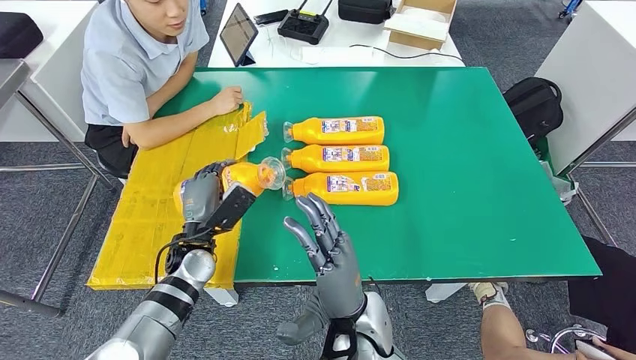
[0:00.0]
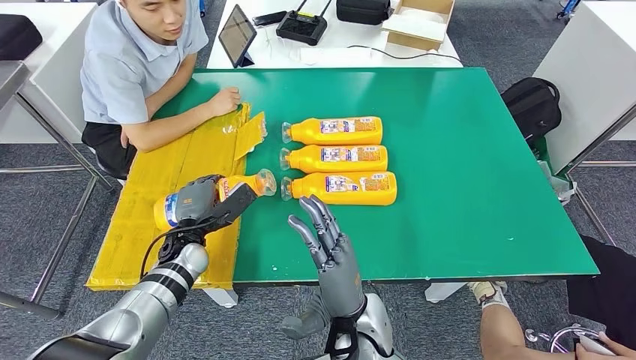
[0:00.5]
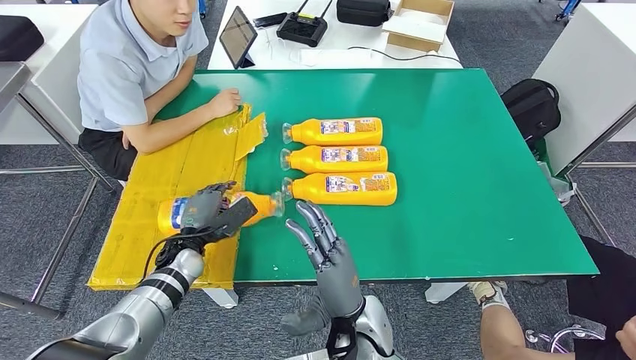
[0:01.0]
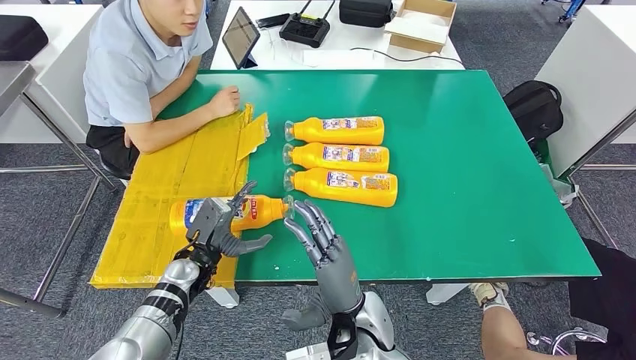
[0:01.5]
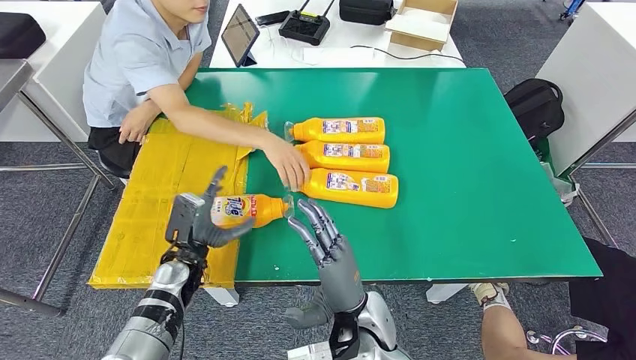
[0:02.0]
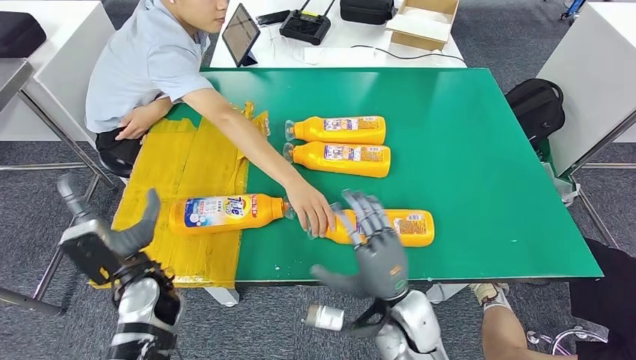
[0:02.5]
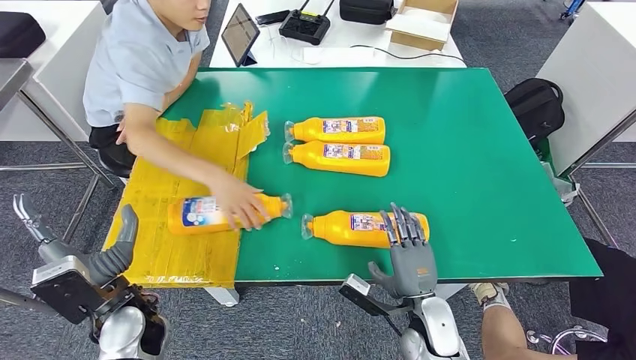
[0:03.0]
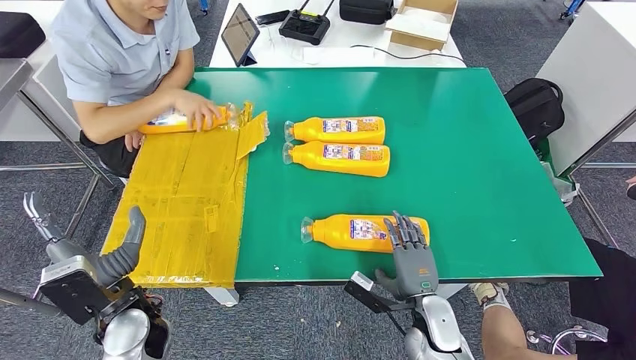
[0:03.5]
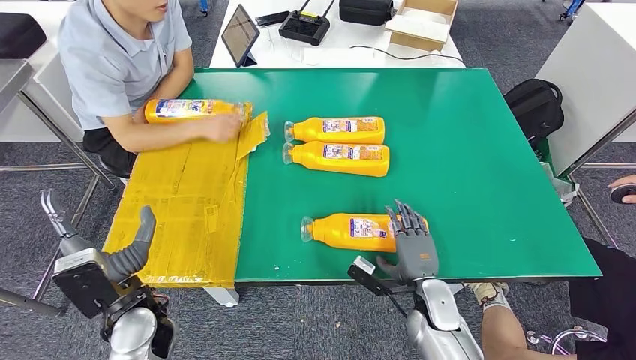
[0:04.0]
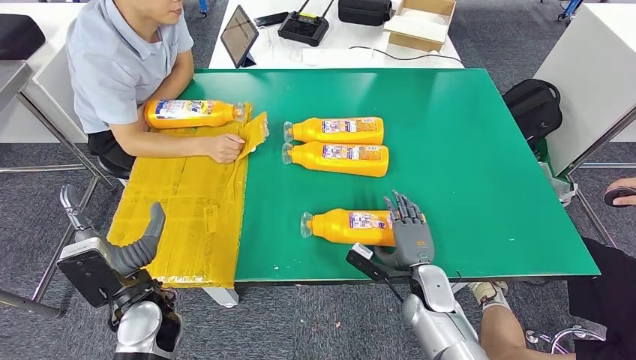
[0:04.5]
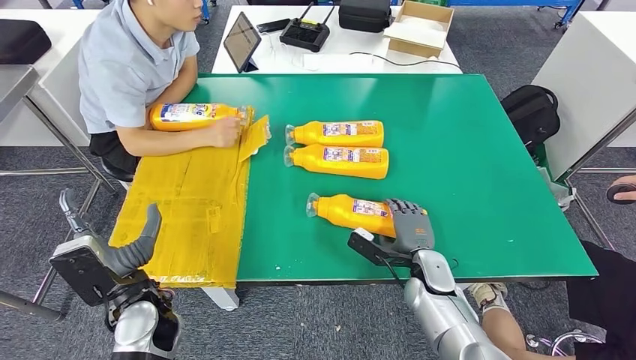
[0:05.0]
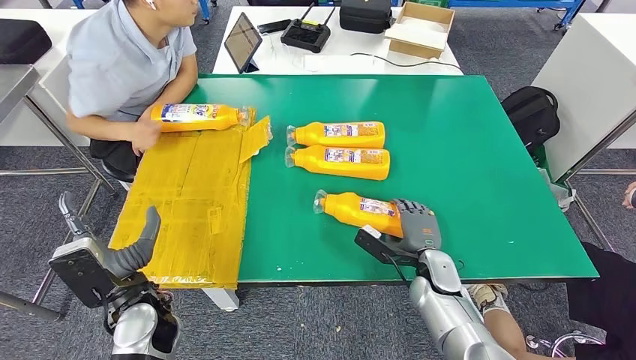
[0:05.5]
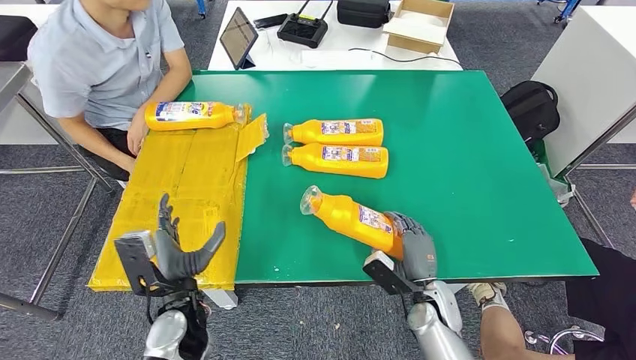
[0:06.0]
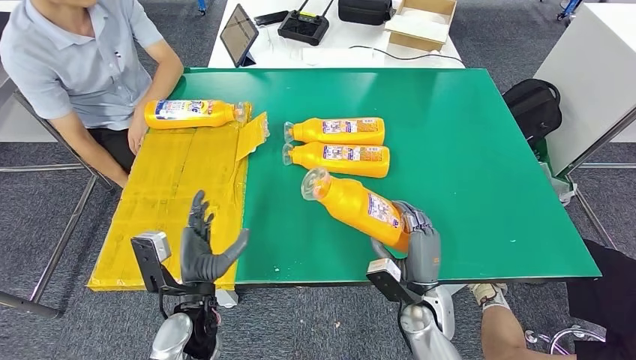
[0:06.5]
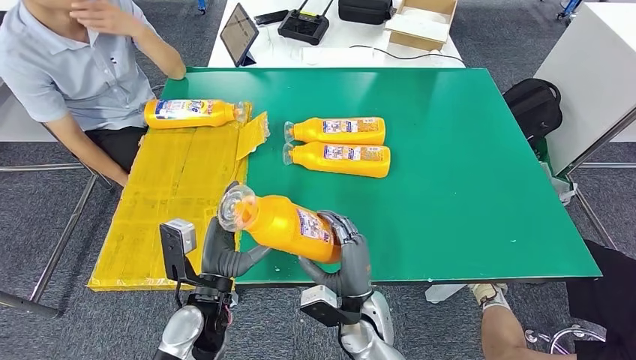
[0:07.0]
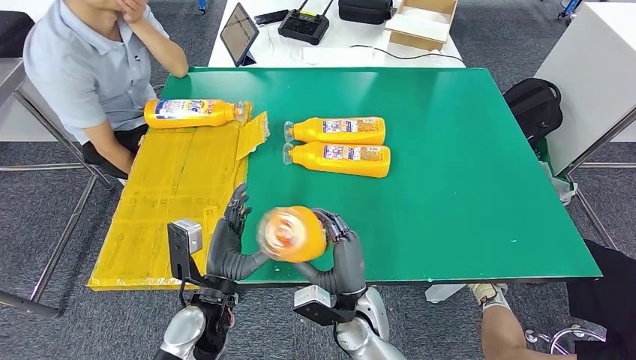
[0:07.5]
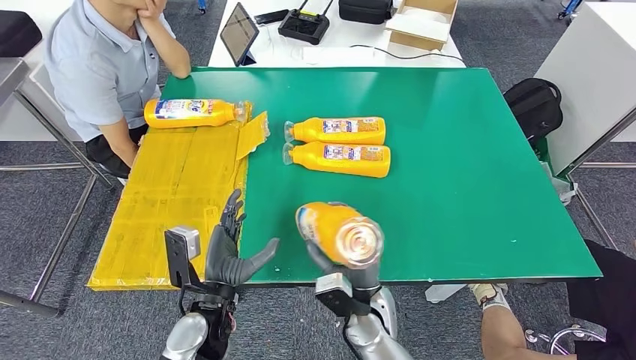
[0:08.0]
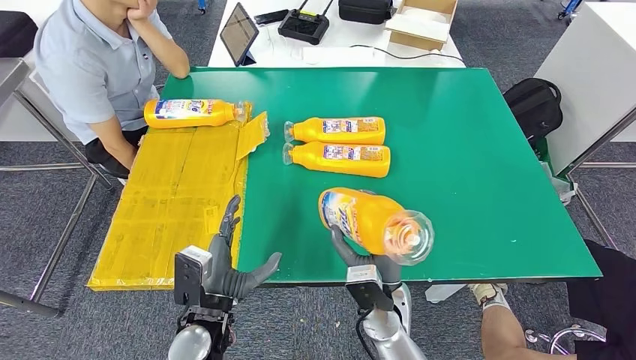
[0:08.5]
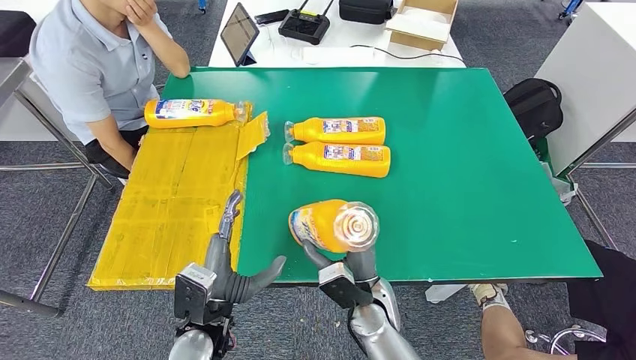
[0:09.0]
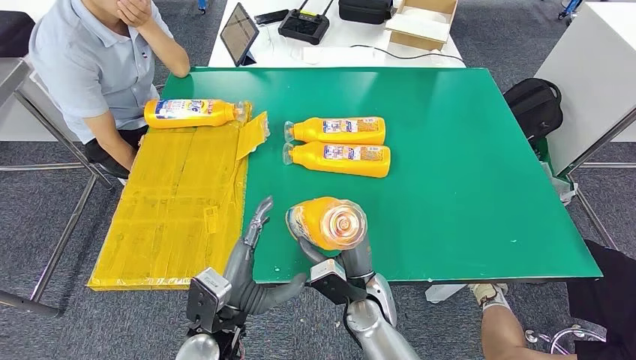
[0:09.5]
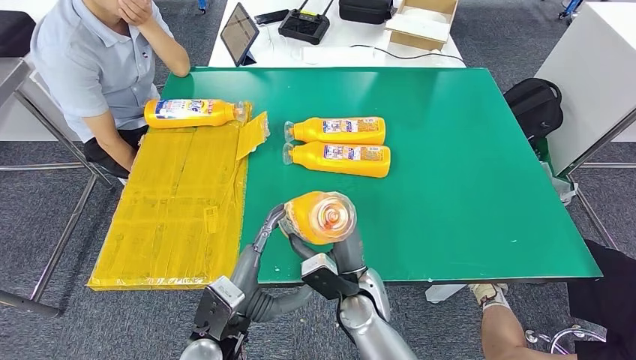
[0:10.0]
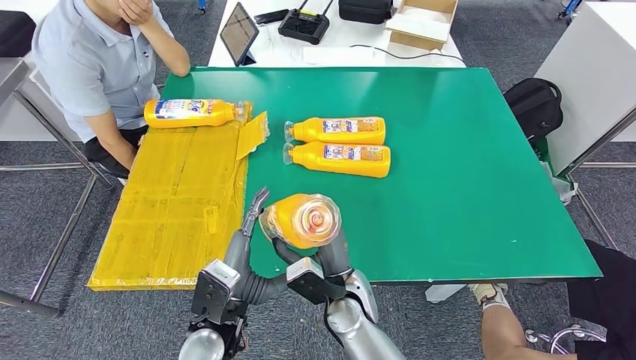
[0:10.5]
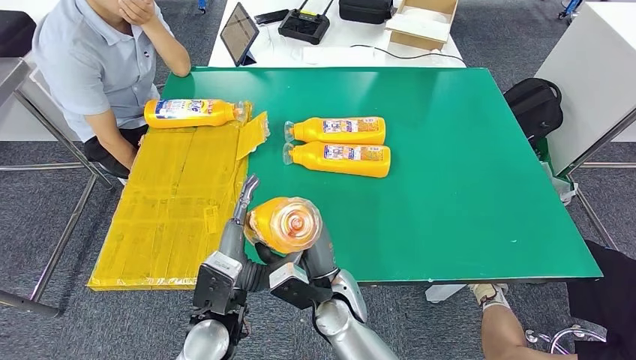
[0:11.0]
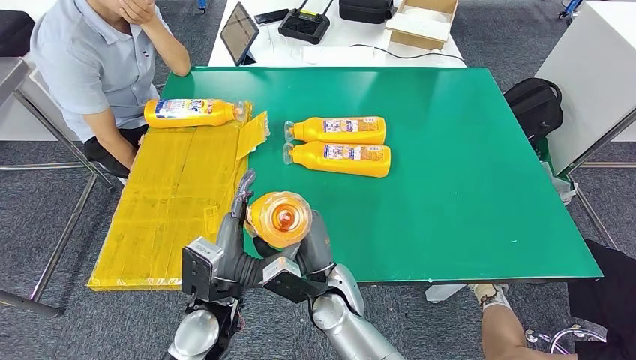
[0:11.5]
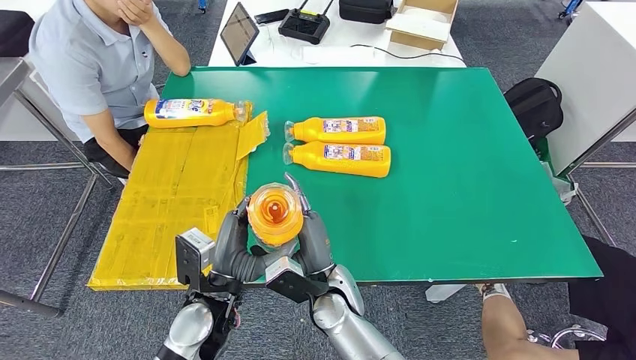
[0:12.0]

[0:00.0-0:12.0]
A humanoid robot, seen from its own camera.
Step, 0:01.0 to 0:07.0: Pick up the bottle from the table.
0:10.0 to 0:12.0: The right hand is displaced to the left by about 5 cm.

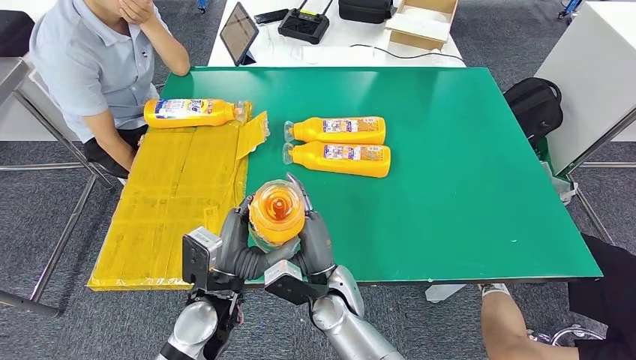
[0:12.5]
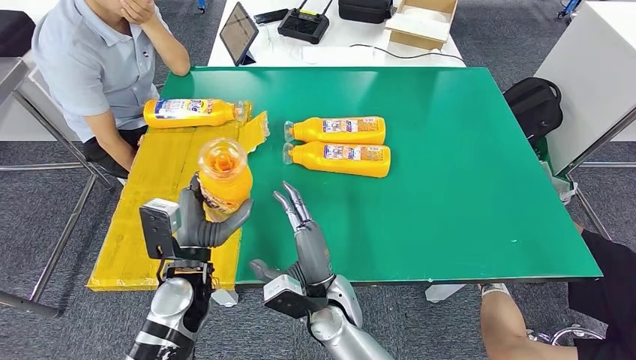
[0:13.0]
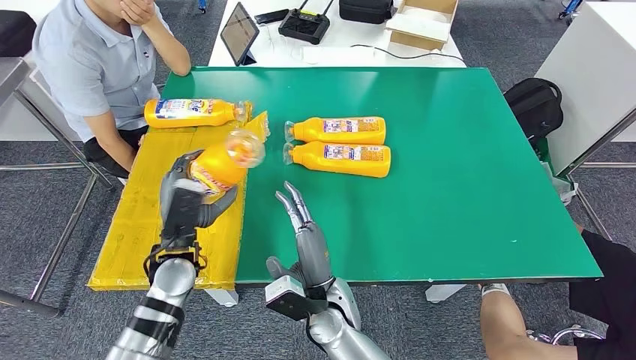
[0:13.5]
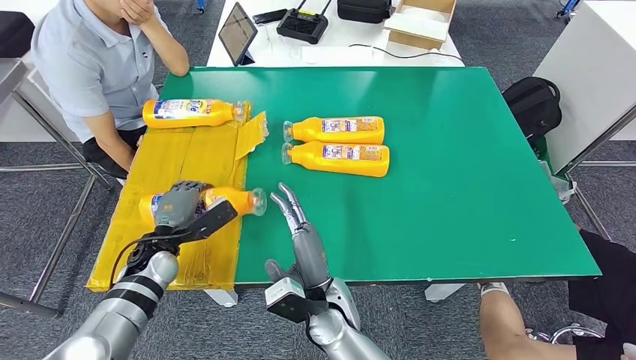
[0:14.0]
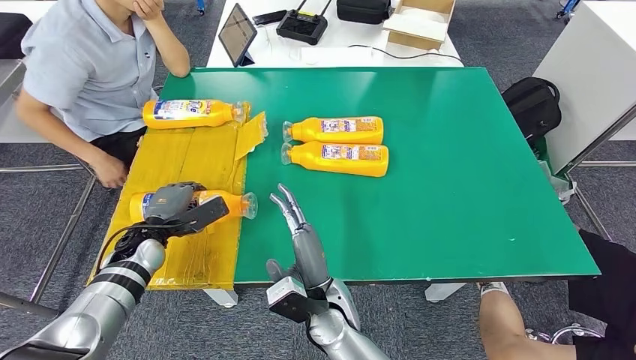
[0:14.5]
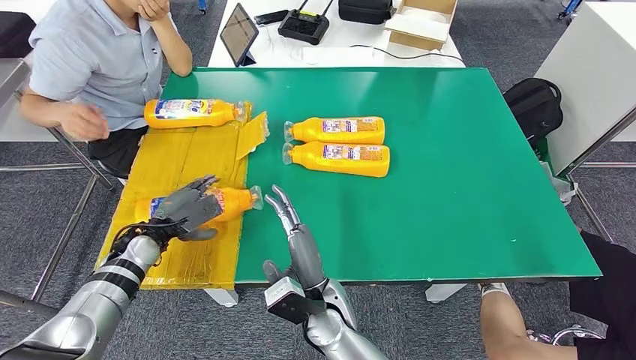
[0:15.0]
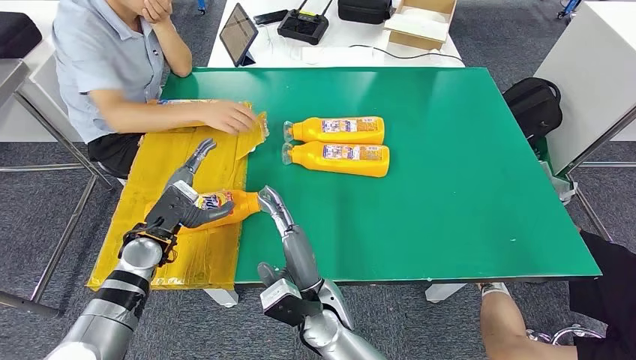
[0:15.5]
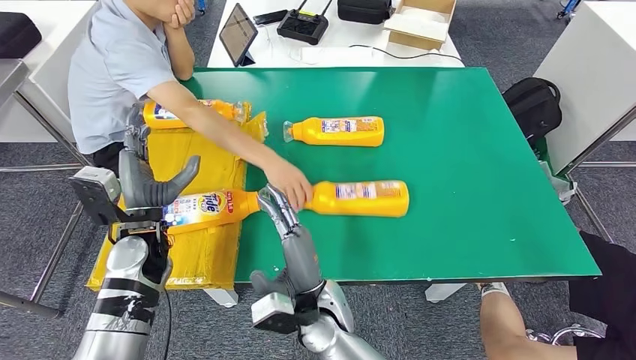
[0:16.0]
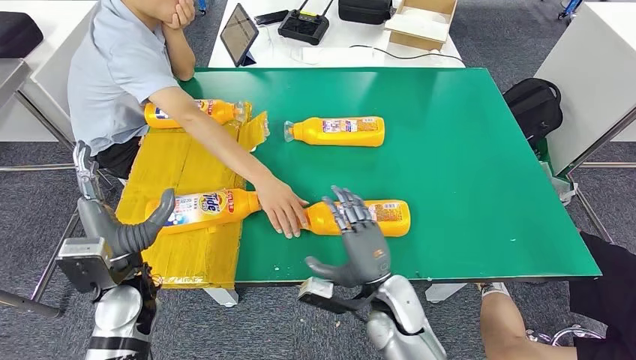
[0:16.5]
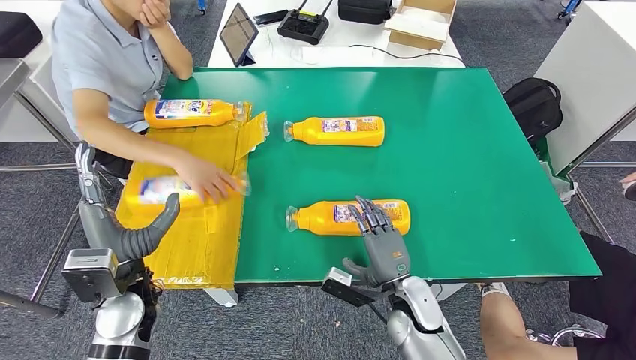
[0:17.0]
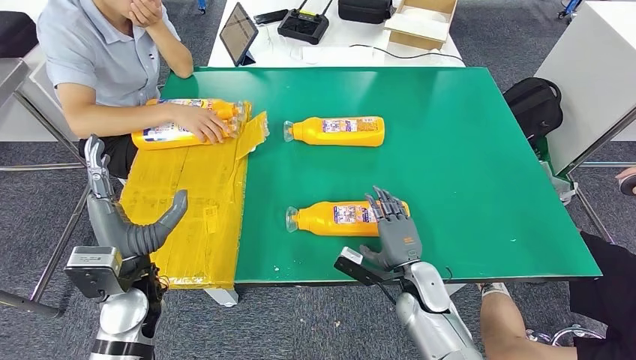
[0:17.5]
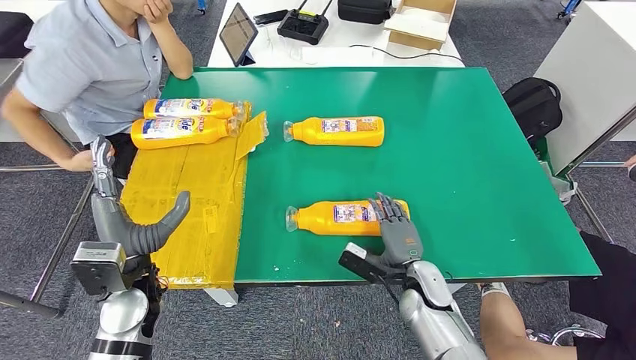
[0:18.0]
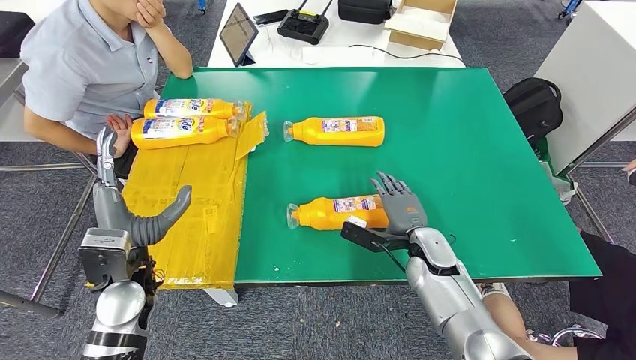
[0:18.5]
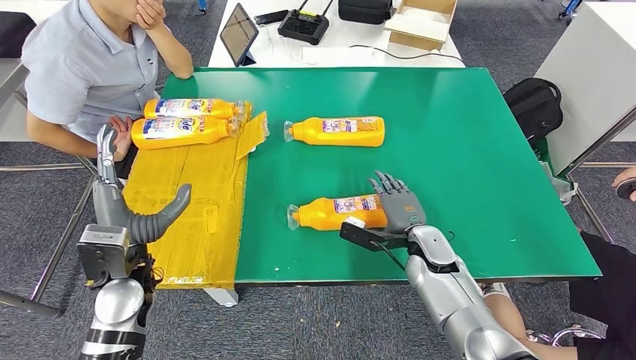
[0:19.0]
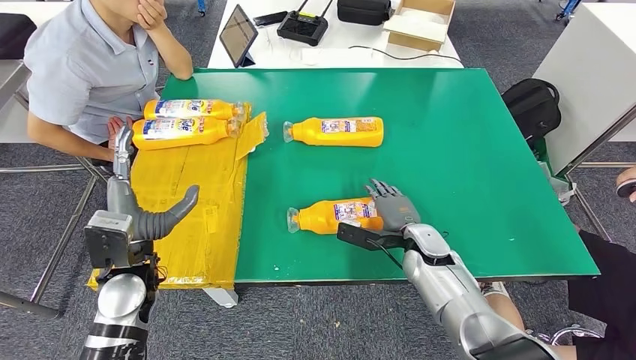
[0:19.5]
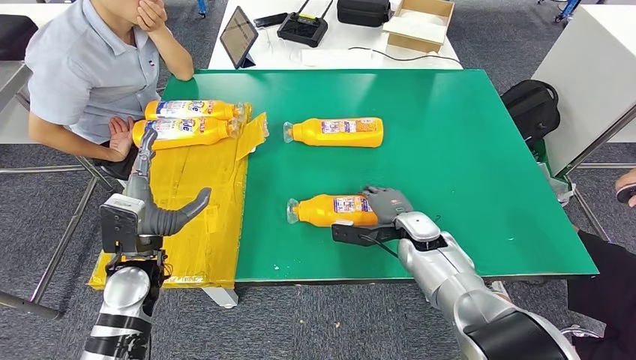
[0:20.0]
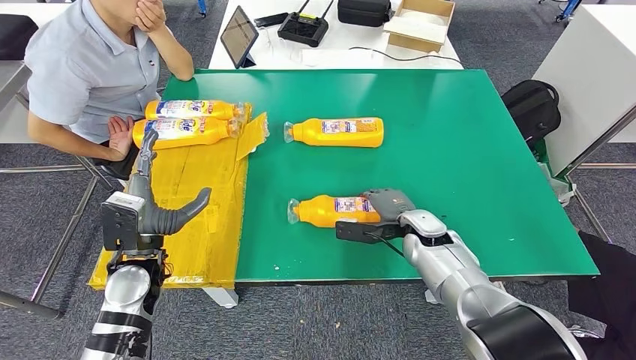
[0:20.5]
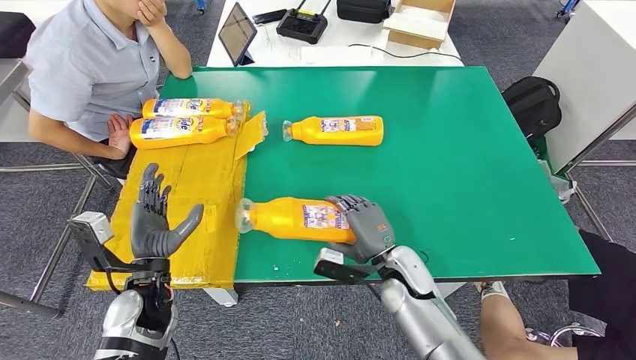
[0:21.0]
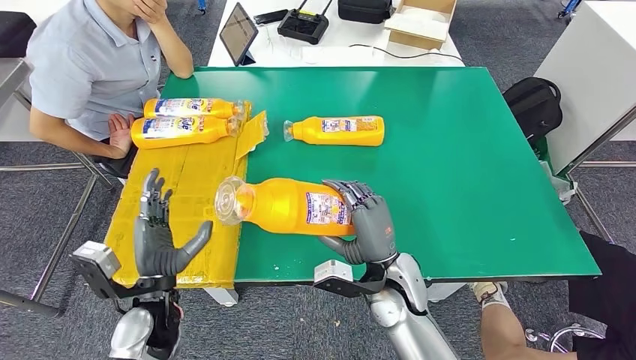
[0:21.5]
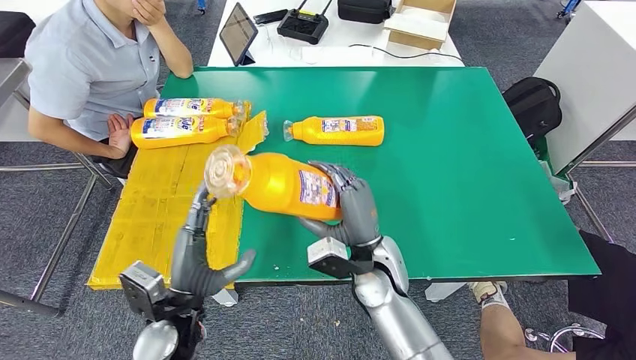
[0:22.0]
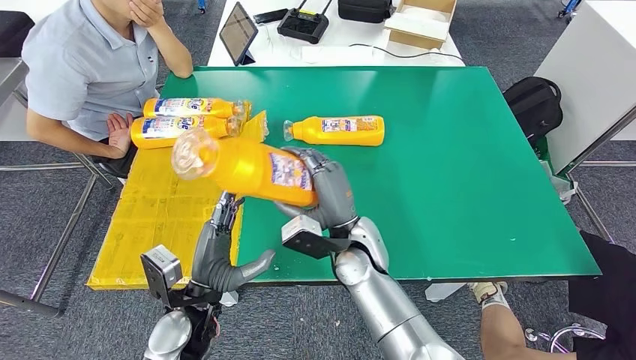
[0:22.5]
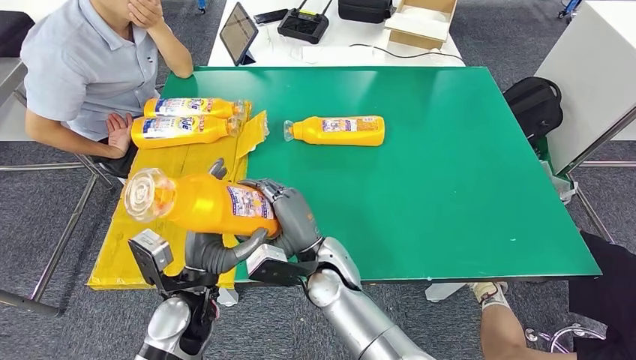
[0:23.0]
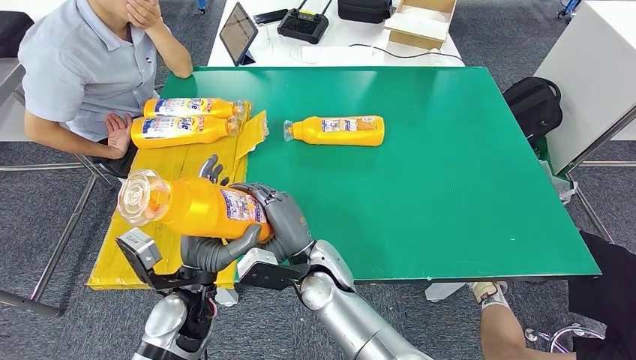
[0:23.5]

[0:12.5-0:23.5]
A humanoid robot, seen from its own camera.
Step, 0:12.5 to 0:14.5: Flip the bottle to face forward.
Step, 0:16.0 to 0:22.5: Pick up the bottle from the table.
0:21.5 to 0:23.5: The left hand heads to the right, covering approximately 5 cm. The right hand moves to the left, approximately 15 cm.
